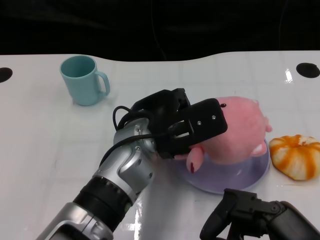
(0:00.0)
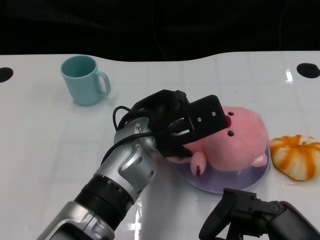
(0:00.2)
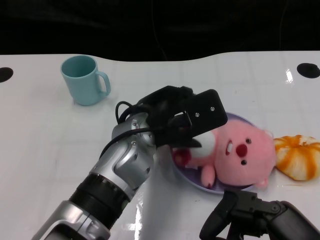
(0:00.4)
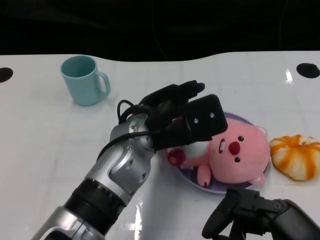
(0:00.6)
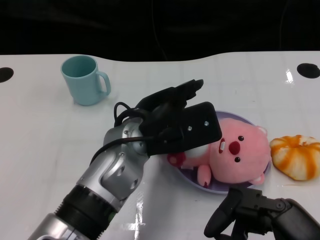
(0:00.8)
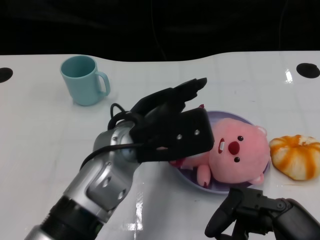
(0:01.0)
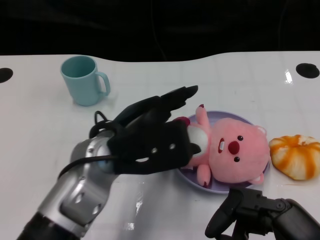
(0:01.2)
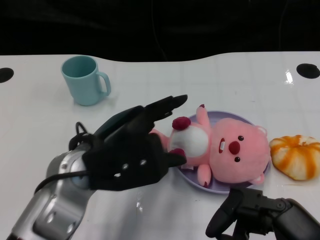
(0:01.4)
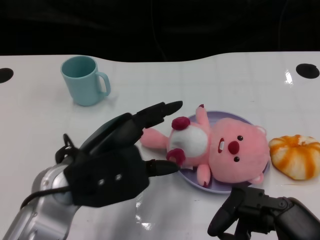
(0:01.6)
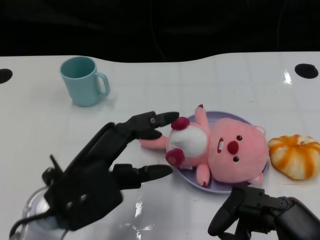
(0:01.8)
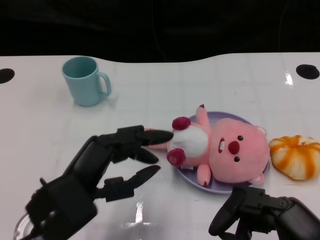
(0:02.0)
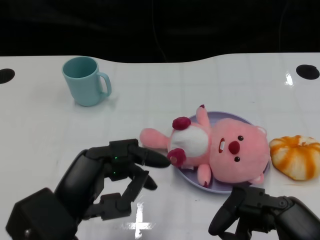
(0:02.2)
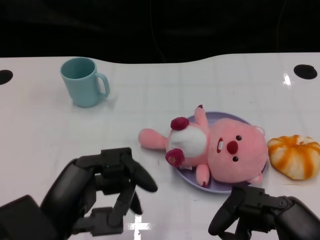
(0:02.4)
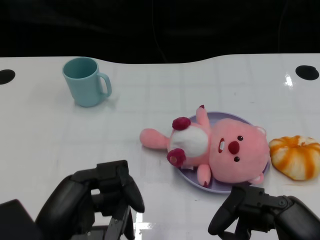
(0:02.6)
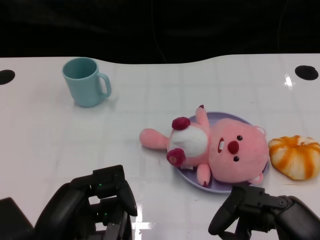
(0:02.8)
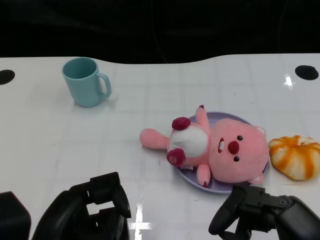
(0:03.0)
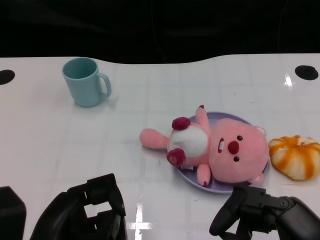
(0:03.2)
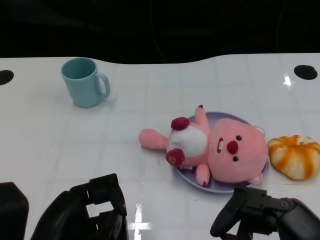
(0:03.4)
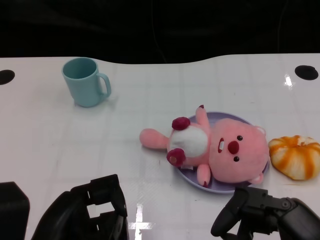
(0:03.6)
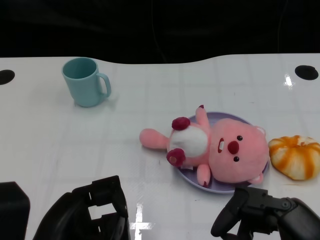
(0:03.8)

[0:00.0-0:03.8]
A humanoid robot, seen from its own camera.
Task of the whole recording: Pick up the doll on one side of the plate and place it into the plate.
0:00.0 to 0:01.2: The left hand ends up roughly 5 cm from where it was.
0:01.2 to 0:02.6: The left hand is displaced backward and to the left by approximately 15 cm.
